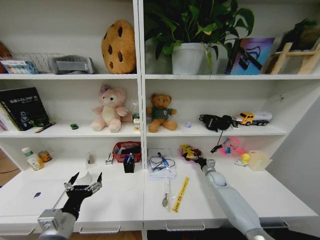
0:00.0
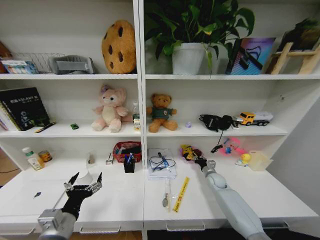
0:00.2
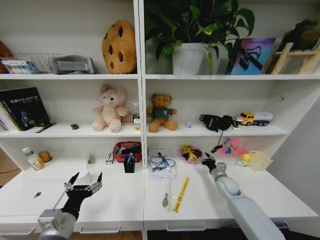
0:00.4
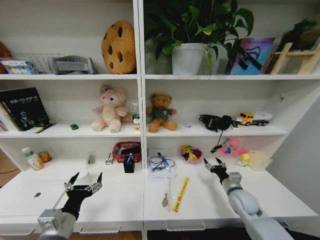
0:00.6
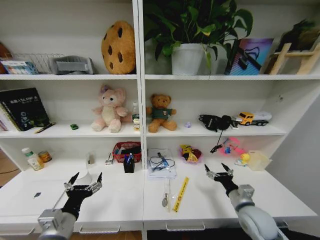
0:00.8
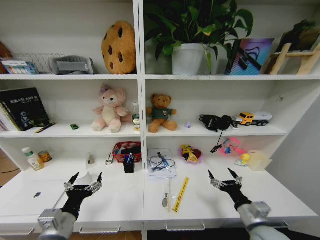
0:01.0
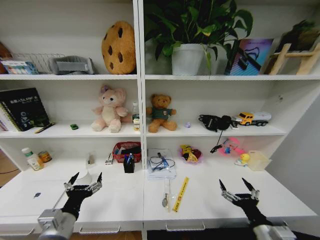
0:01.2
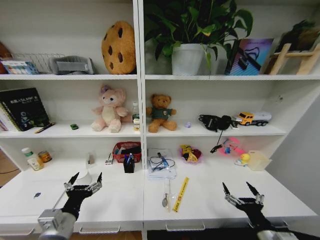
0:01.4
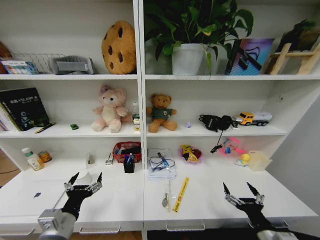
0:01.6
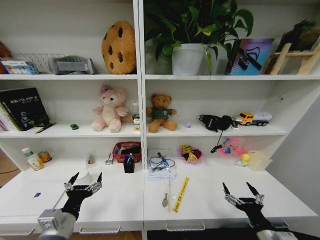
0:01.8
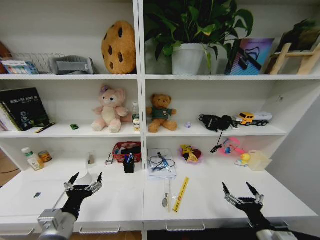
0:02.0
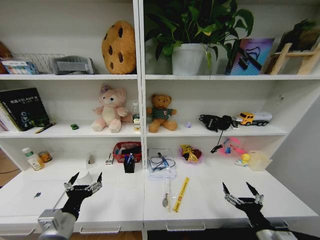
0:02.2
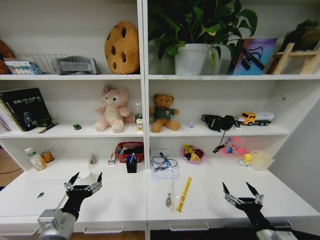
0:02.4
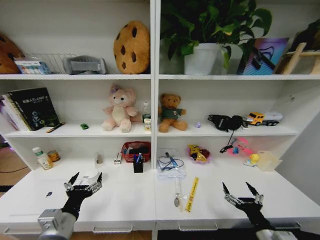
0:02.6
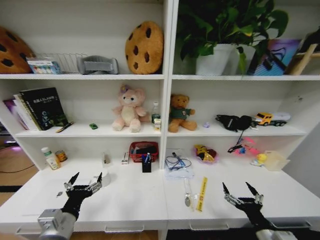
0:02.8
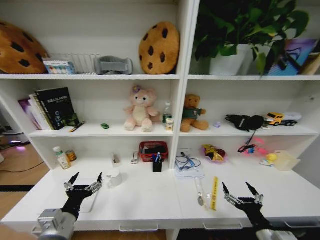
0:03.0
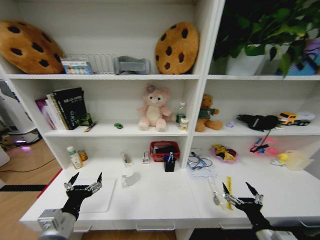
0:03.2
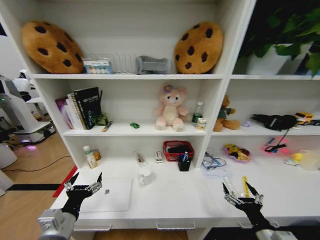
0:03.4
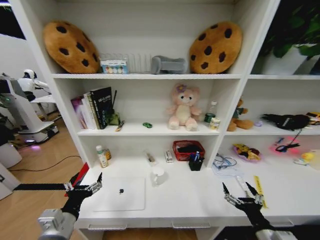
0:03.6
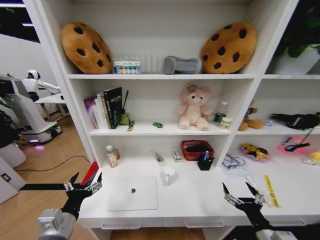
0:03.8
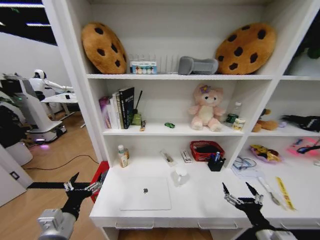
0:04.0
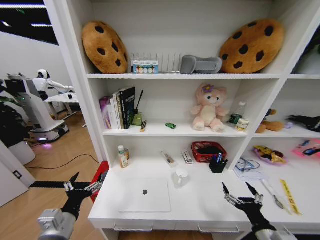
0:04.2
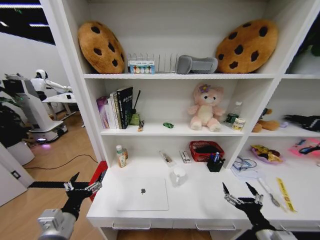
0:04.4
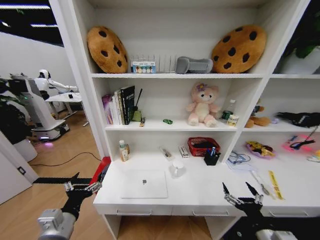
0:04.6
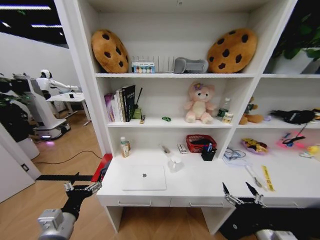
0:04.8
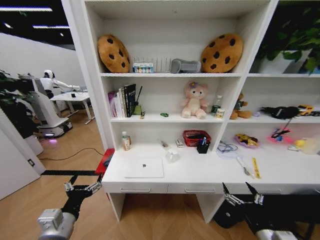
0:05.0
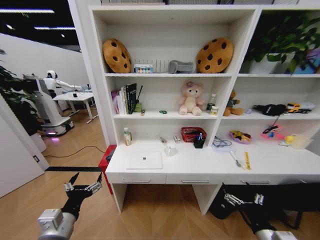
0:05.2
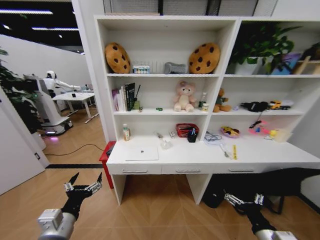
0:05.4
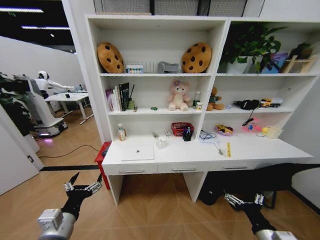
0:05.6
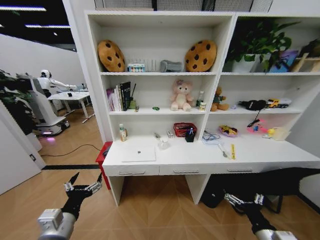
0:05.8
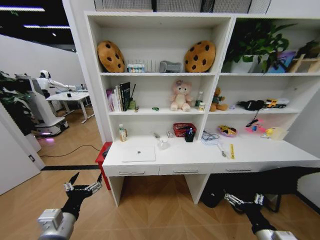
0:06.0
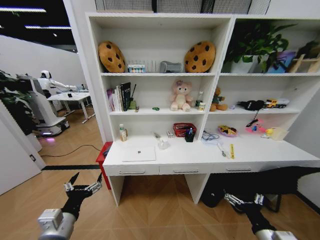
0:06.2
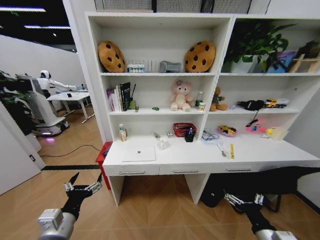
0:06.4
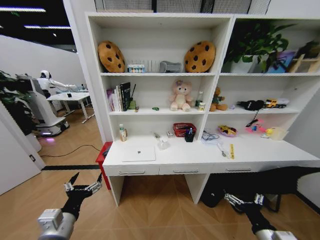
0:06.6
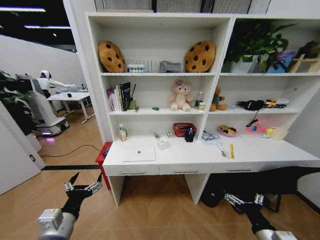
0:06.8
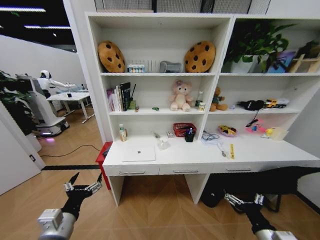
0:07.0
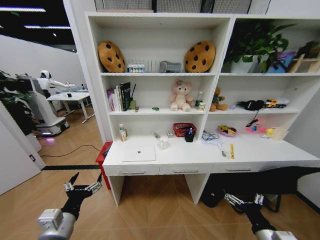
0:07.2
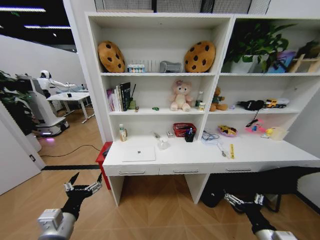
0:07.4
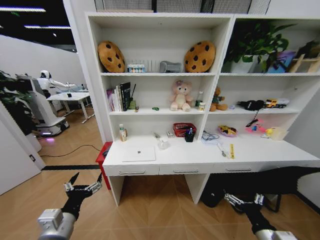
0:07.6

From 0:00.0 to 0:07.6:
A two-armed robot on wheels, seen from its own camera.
Task of the whole recording: Organize the objects on the table.
From 0:00.0 to 0:01.6: The right gripper shifts approximately 35 cm backward, and opens.
From 0:06.0 to 0:07.6: The two grippers keep their place.

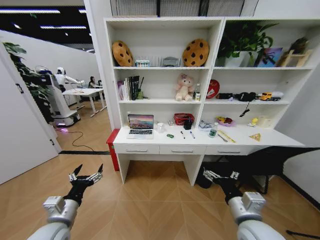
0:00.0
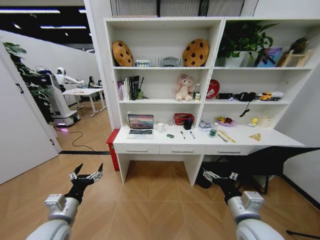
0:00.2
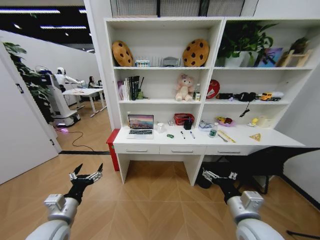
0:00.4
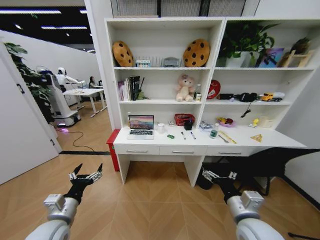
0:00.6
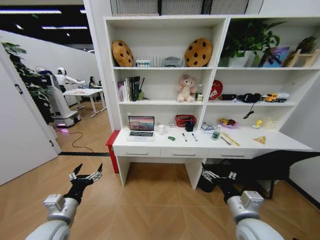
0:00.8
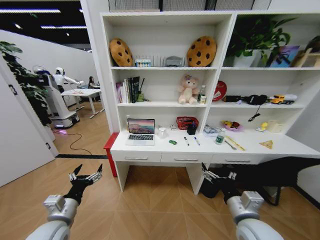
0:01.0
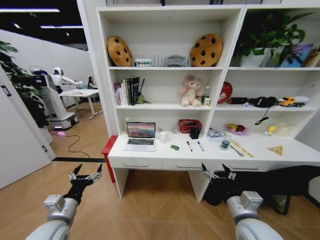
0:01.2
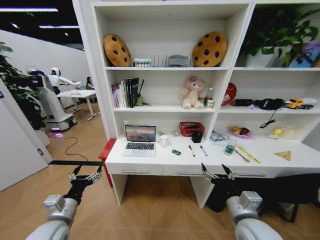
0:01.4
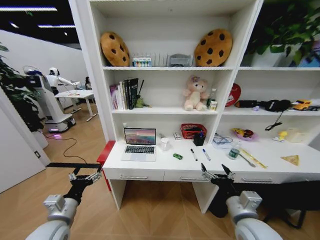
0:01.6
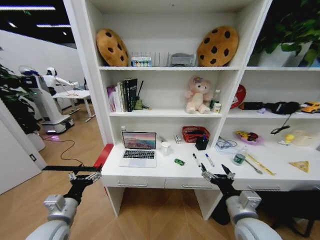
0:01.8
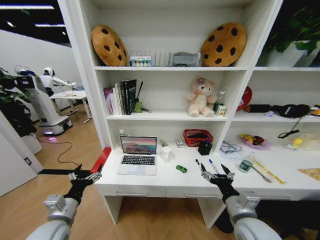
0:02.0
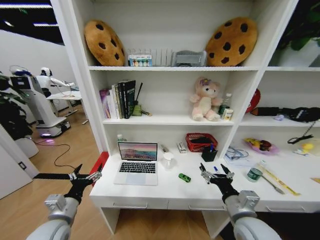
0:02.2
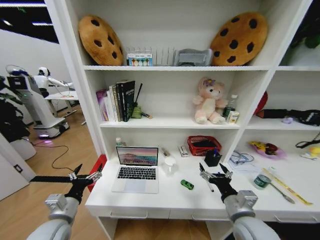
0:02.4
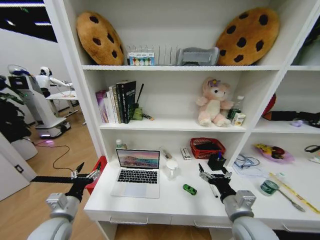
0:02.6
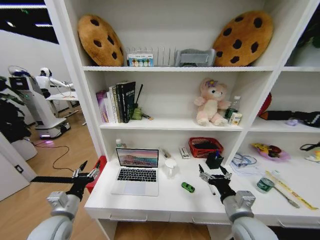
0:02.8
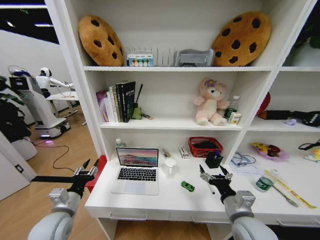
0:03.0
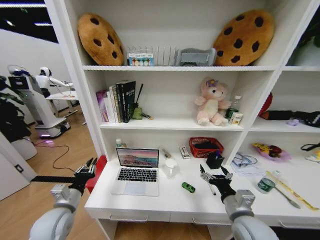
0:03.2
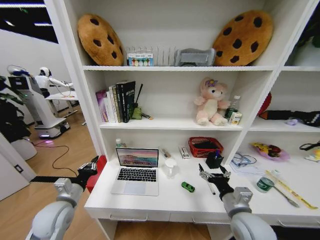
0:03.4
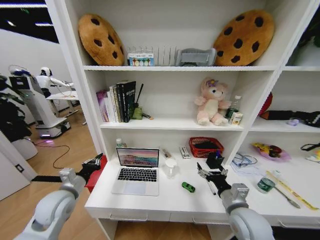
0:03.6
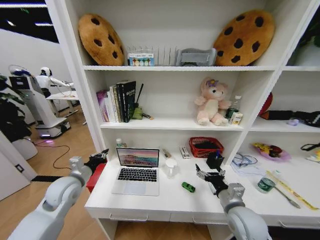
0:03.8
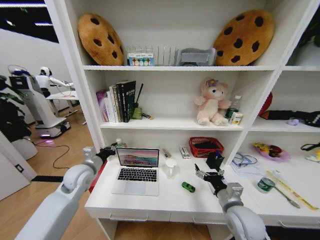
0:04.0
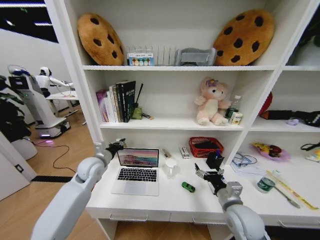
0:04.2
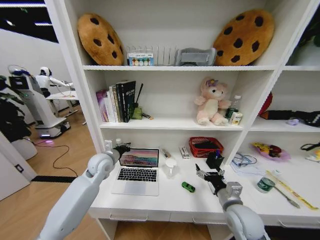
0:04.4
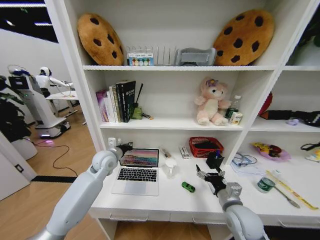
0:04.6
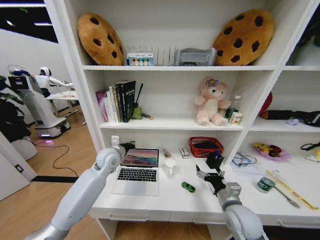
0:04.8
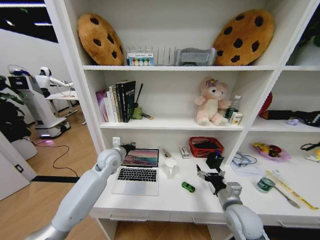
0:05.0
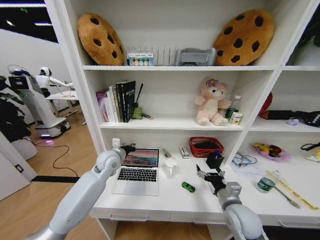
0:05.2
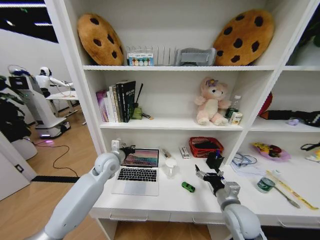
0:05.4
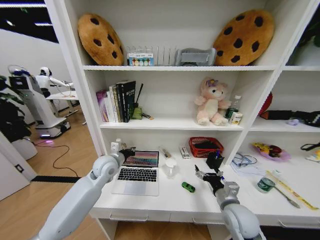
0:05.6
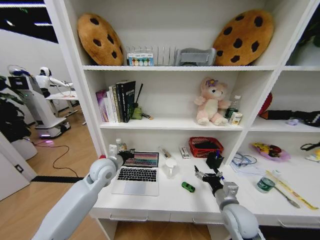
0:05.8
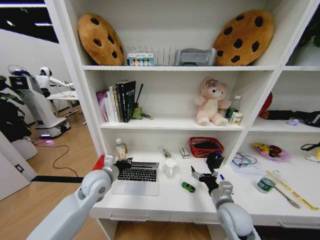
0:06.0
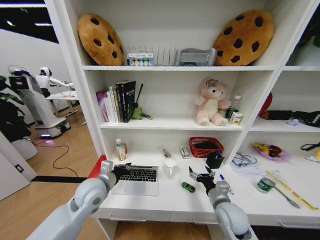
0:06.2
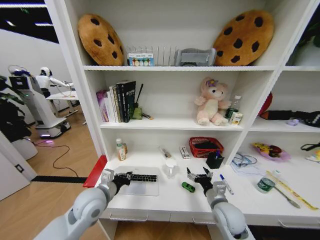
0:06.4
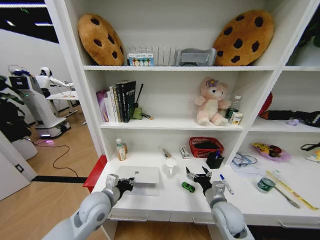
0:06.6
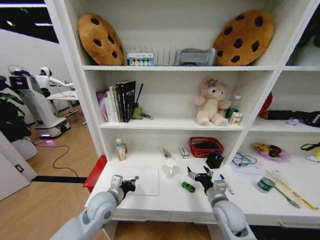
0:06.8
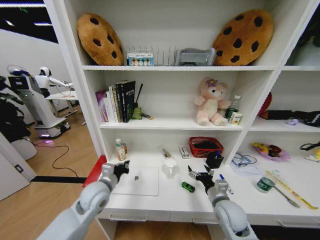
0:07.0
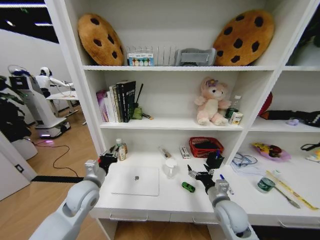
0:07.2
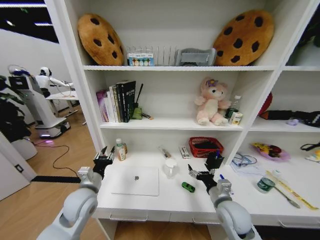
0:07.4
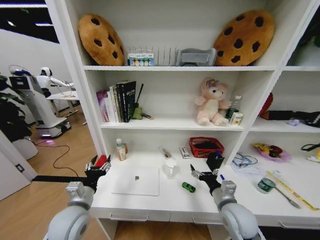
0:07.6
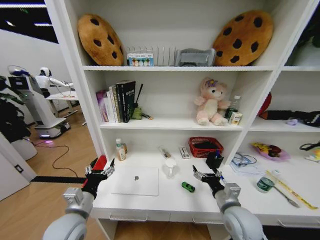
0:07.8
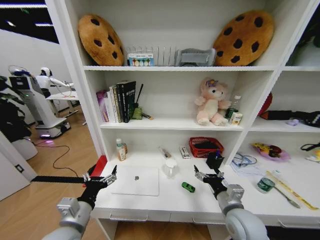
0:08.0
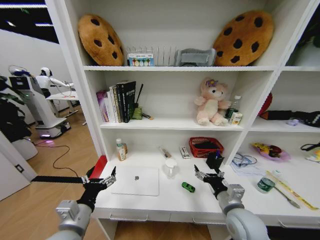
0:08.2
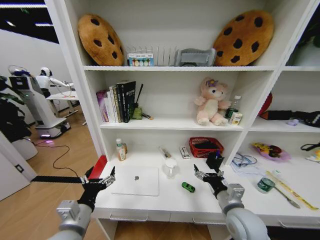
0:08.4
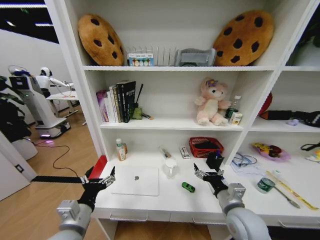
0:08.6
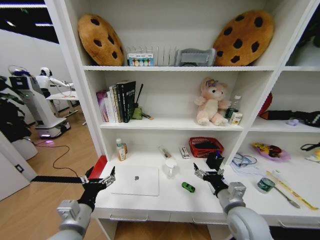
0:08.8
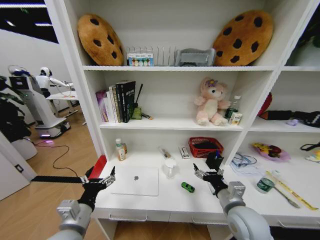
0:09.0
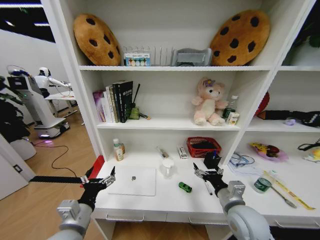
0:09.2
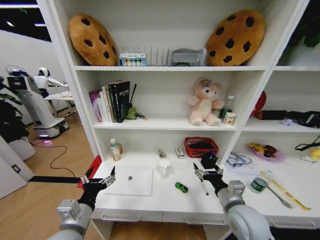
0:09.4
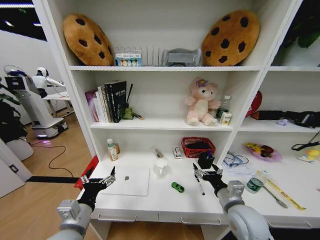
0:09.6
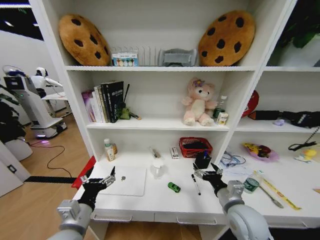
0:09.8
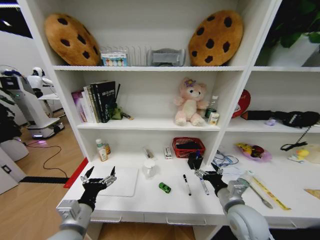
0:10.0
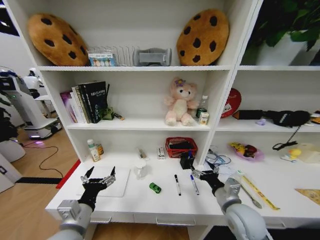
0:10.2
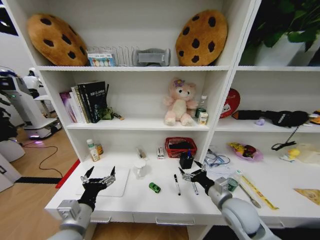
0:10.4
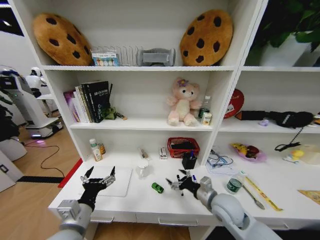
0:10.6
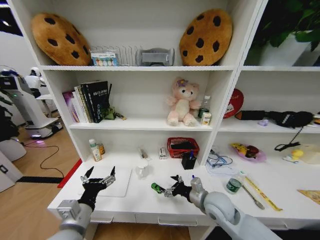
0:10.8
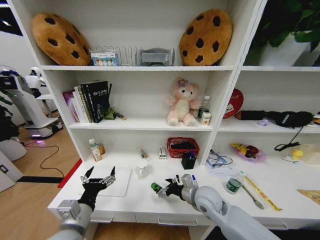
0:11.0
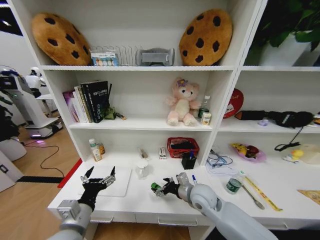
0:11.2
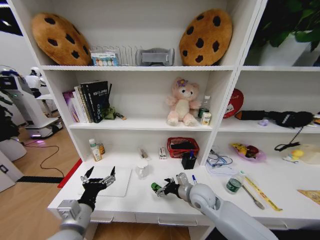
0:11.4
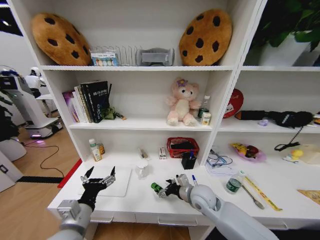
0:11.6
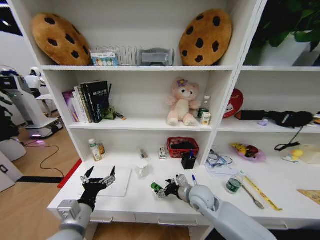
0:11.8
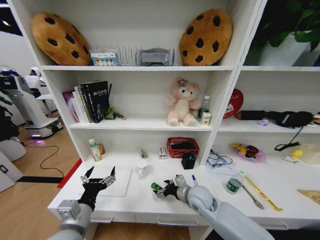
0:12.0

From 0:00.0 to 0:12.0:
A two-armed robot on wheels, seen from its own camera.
Task of the whole recording: Organize the objects on the table.
From 0:01.6 to 0:03.0: The left gripper closes.
From 0:03.0 to 0:04.4: The left gripper heads forward and to the right, covering some 20 cm, and closes its fingers; the right gripper moves some 5 cm.
From 0:04.4 to 0:06.0: The left gripper is displaced backward by about 5 cm.
From 0:06.0 to 0:07.6: The left gripper travels backward by approximately 10 cm, and opens its fingers.
From 0:07.6 to 0:09.0: The left gripper moves backward, some 5 cm.
From 0:10.4 to 0:12.0: The right gripper shifts some 10 cm to the left and forward.

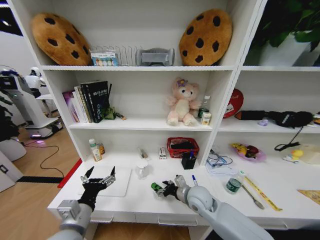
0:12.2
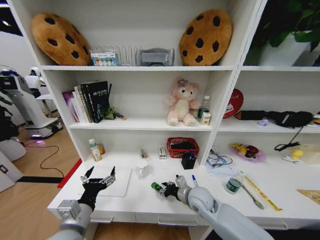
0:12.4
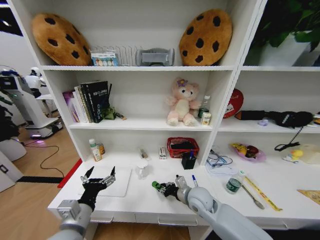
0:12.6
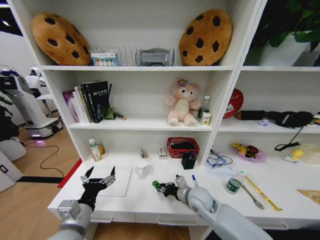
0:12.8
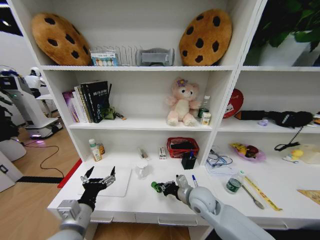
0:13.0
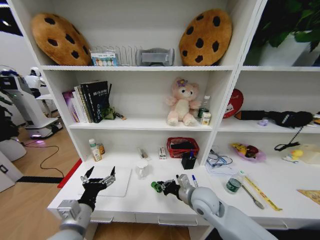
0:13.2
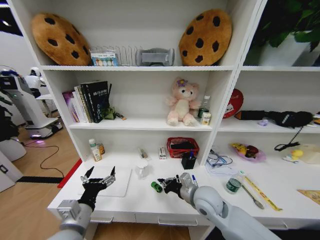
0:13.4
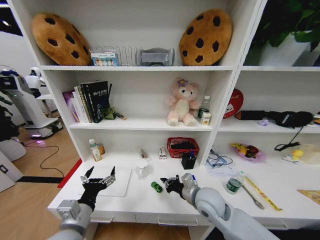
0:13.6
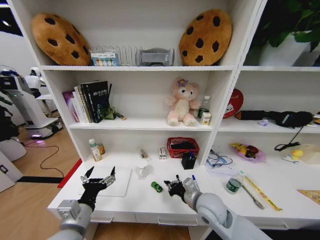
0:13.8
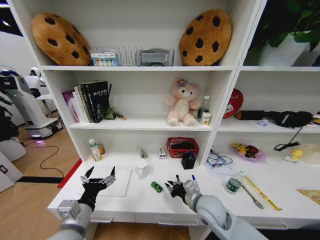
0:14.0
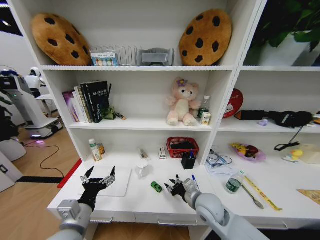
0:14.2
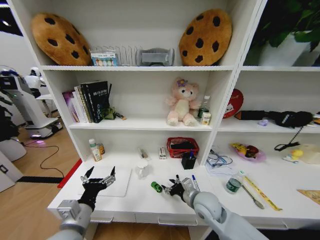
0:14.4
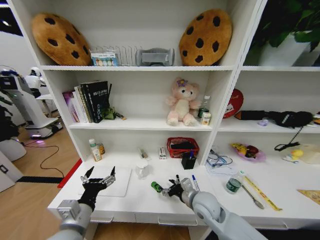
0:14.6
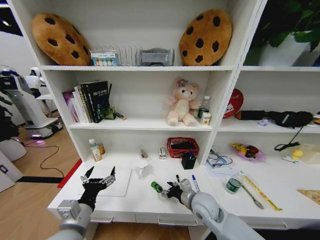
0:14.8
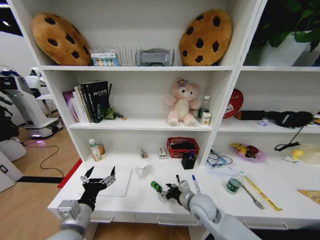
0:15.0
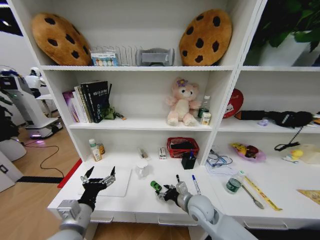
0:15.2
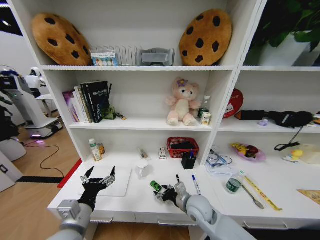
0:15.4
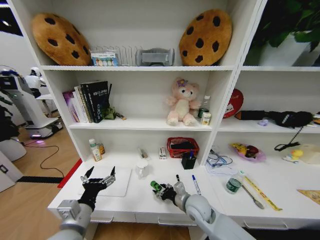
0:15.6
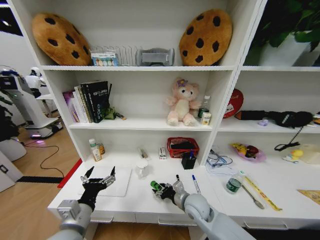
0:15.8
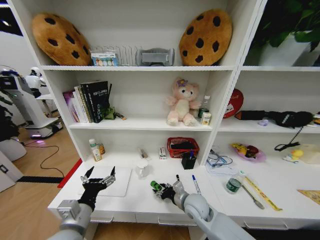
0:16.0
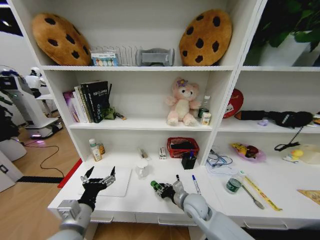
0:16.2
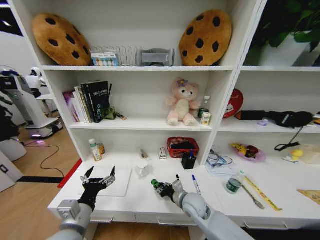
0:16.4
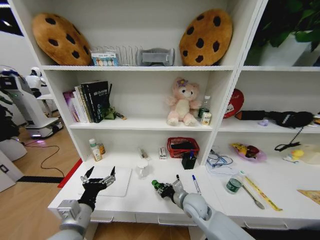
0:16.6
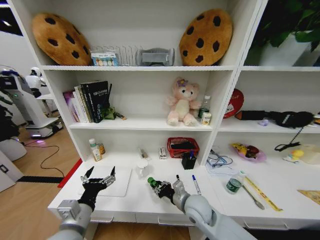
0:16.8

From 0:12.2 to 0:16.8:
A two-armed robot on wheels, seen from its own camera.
Task of the whole recording: Organize the objects on the table.
From 0:12.2 to 0:13.8: The right gripper changes place by about 5 cm, and closes.
From 0:13.8 to 0:15.2: The right gripper ends up about 5 cm from where it was, and opens its fingers.
From 0:15.2 to 0:16.8: The grippers make only small movements.
